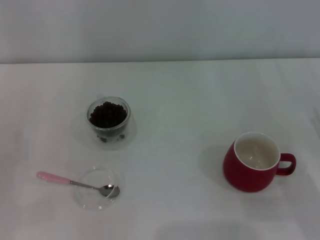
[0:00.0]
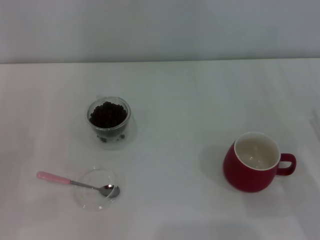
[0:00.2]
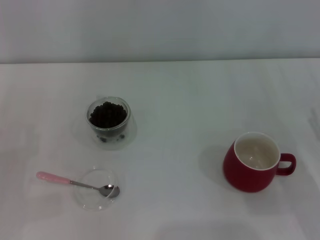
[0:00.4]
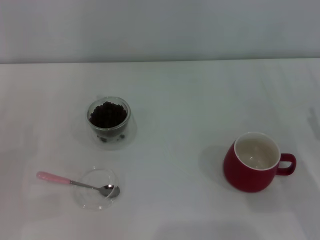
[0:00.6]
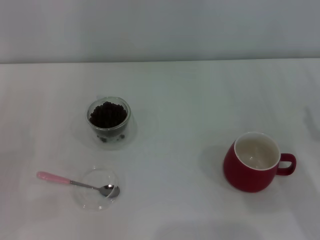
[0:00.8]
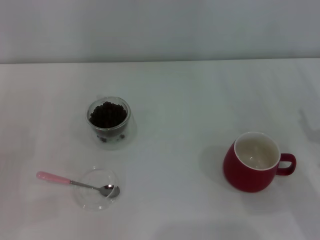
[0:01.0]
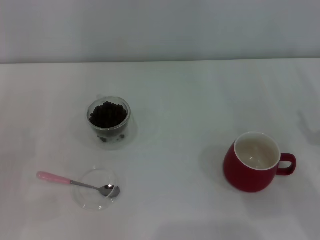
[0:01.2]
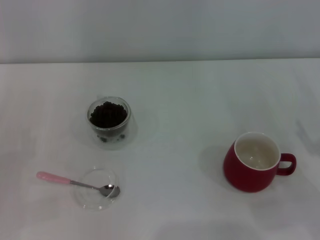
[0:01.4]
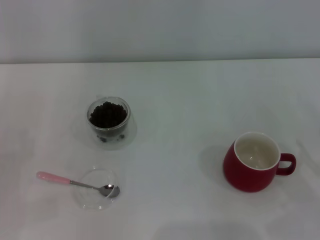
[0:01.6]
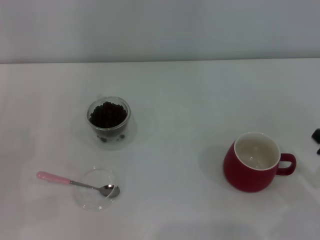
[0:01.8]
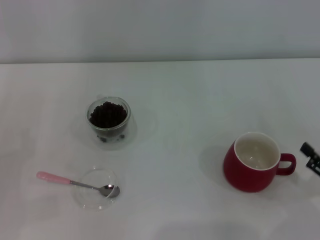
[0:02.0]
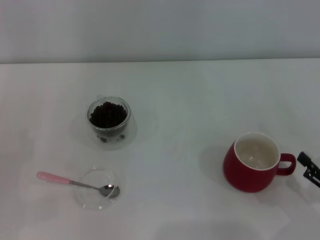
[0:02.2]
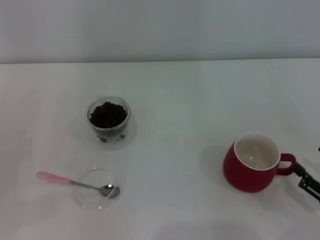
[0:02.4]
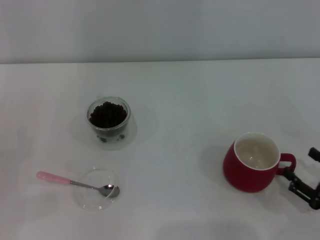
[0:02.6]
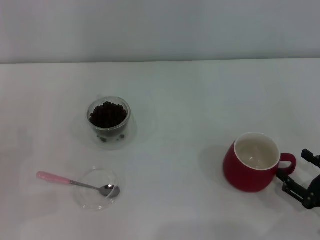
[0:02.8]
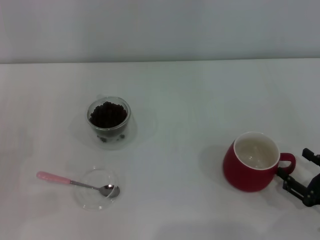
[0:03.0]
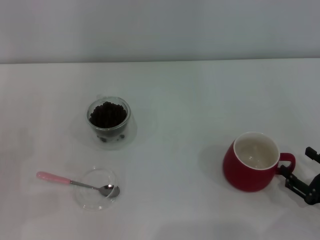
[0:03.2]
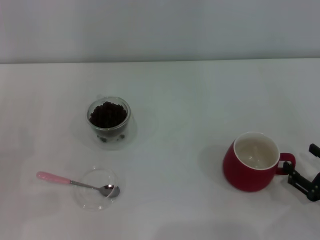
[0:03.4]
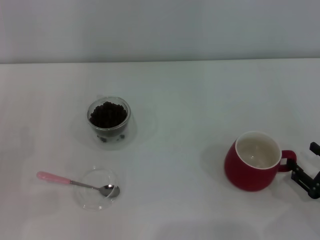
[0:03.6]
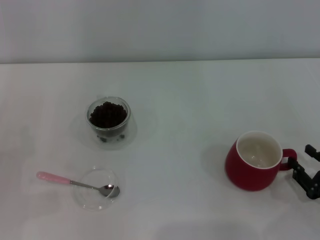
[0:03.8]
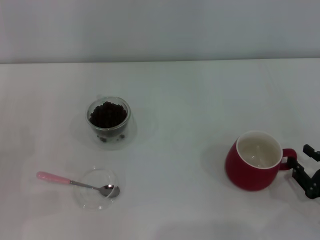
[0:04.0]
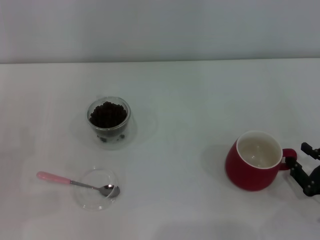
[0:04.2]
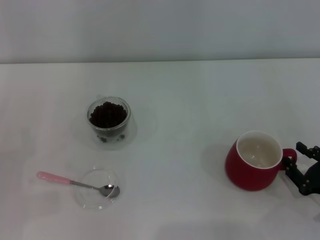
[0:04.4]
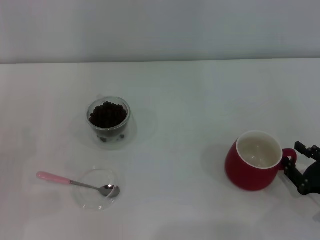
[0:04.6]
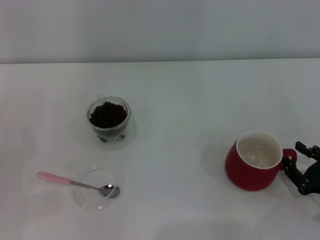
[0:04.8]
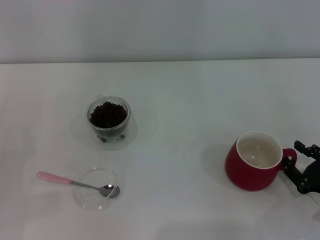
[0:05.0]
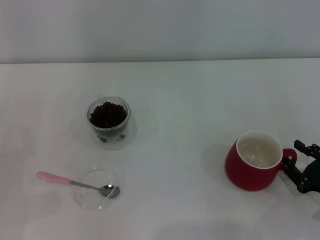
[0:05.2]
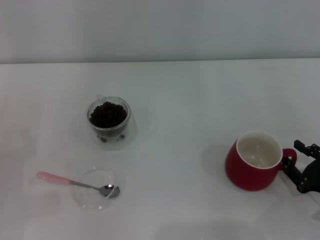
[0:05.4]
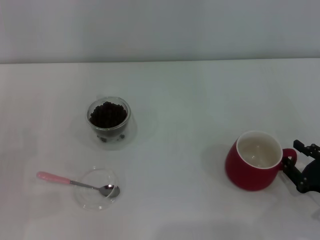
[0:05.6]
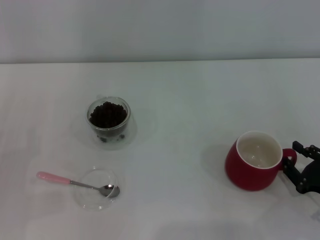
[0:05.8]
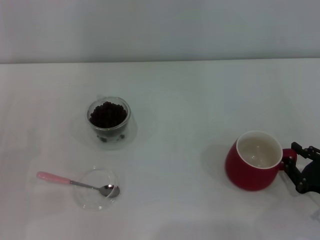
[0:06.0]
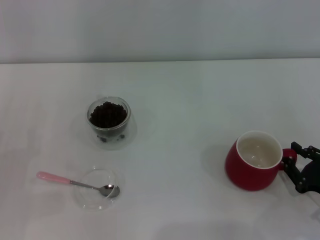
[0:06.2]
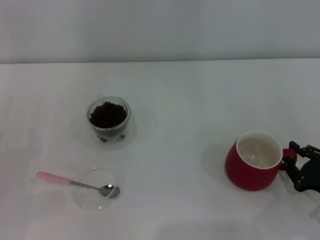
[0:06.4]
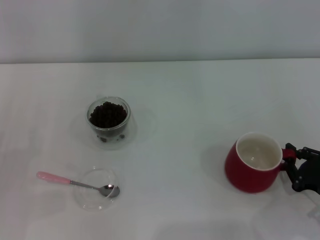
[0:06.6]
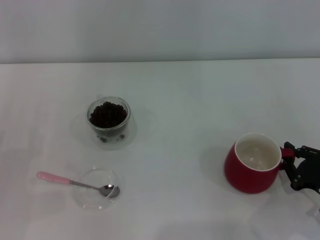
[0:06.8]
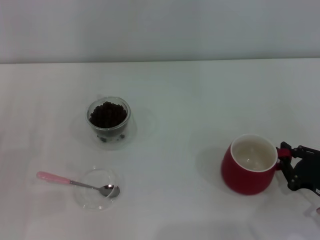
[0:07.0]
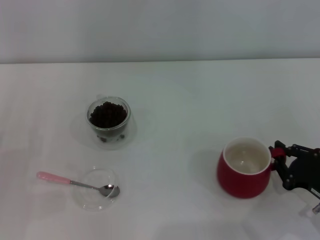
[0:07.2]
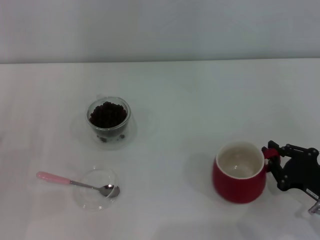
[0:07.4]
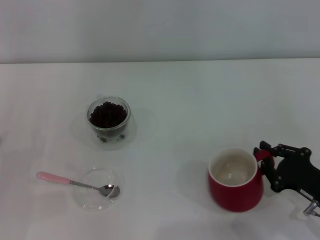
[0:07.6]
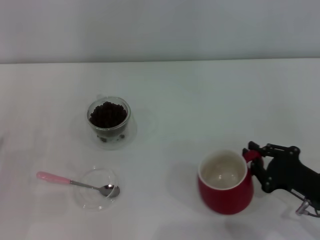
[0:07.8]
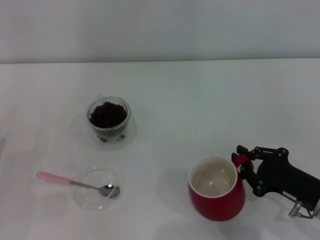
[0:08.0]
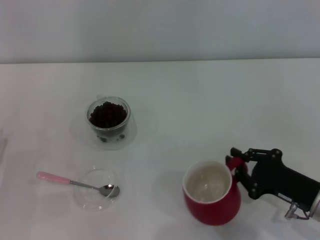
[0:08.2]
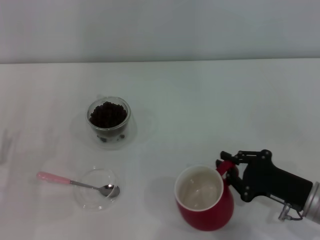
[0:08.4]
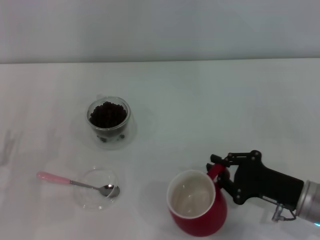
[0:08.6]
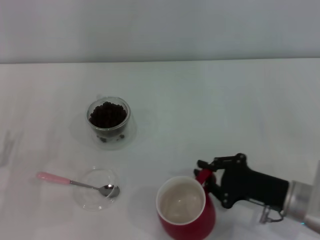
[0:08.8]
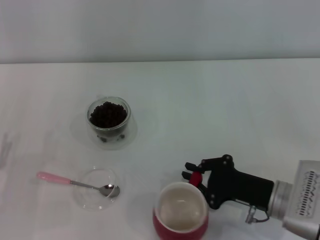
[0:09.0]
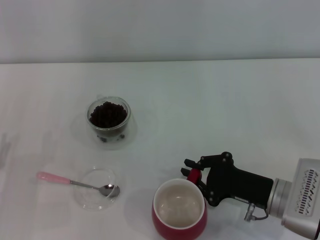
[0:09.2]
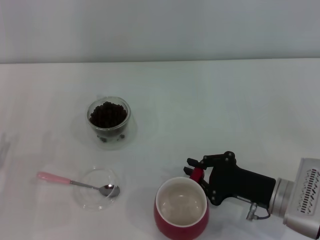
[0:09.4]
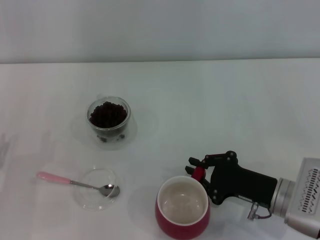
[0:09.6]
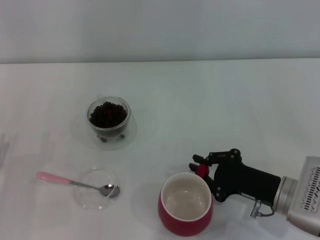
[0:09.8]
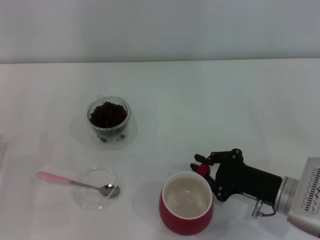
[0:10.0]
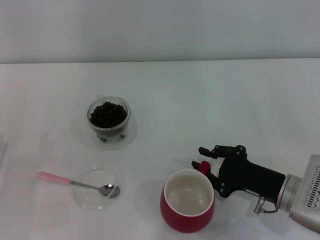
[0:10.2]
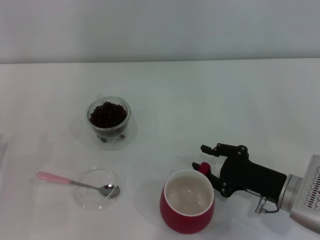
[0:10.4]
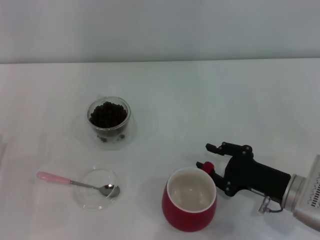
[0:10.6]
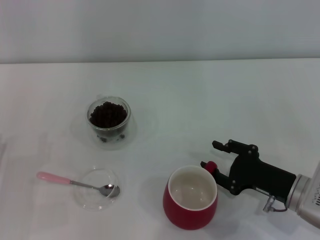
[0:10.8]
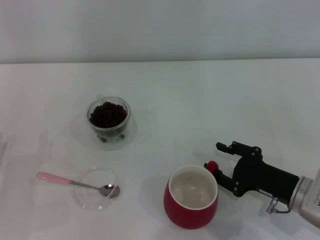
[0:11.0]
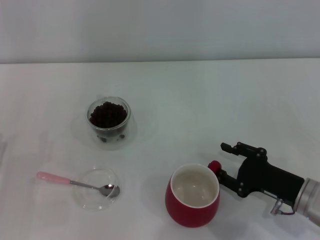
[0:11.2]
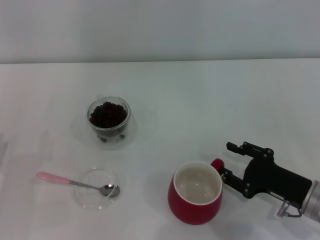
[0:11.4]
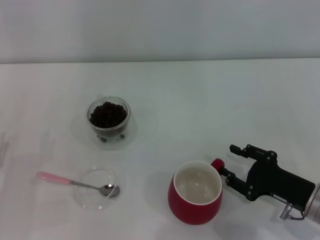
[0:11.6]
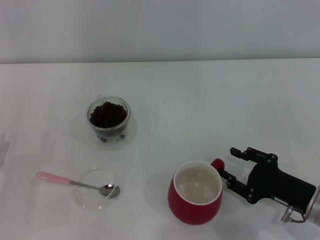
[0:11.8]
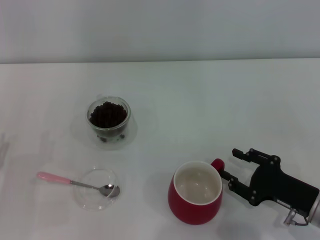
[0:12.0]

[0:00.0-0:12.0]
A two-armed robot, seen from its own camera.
Task of the whole recording: Use a pink spoon to take out the coffee beans from the glass and pour them into the red cup.
0:01.6 to 0:03.0: There are only small adjustments of the grippers.
0:03.0 to 0:04.4: The right gripper closes its fingers.
0:04.4 to 0:06.0: Both grippers stay about where they are.
0:06.0 to 0:07.6: The right gripper closes.
0:07.6 to 0:09.0: The right gripper shifts approximately 10 cm to the left.
0:09.0 to 0:10.4: The right gripper opens its fingers.
0:10.4 to 0:12.0: There are only small adjustments of the grippers.

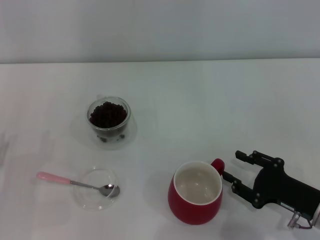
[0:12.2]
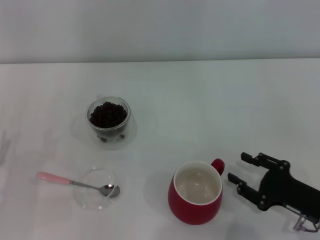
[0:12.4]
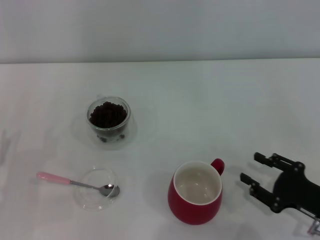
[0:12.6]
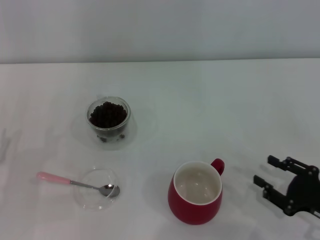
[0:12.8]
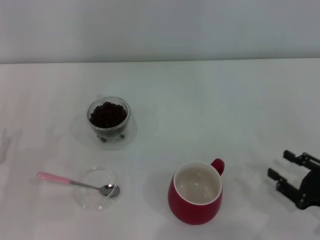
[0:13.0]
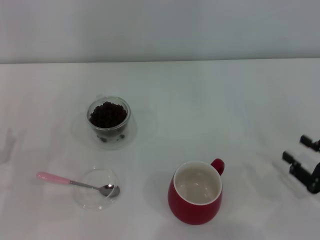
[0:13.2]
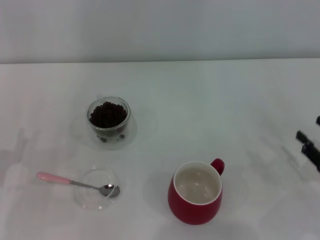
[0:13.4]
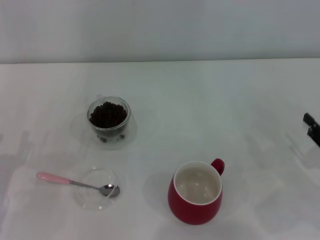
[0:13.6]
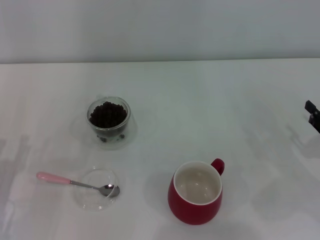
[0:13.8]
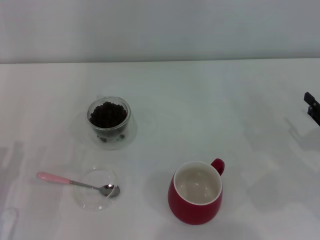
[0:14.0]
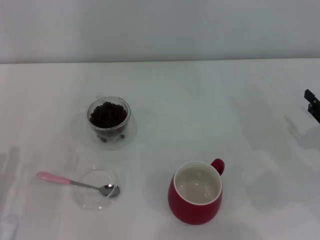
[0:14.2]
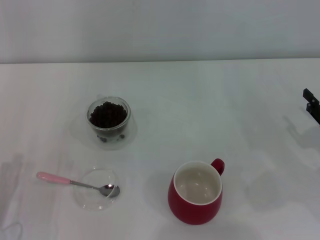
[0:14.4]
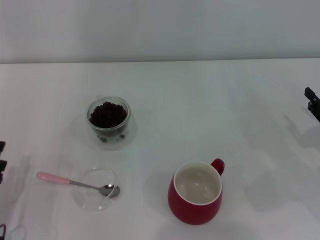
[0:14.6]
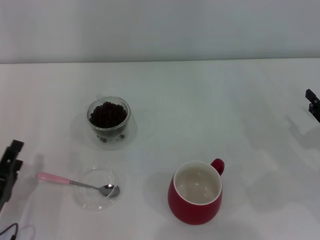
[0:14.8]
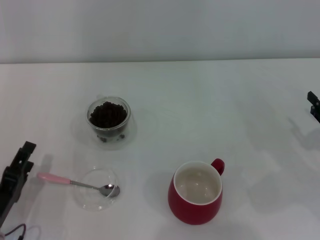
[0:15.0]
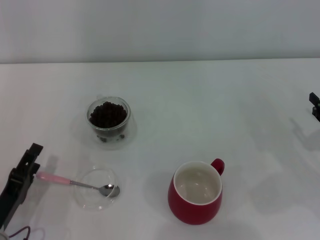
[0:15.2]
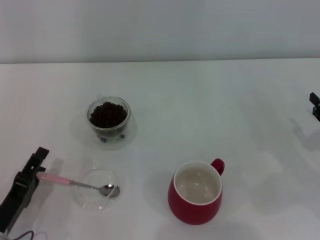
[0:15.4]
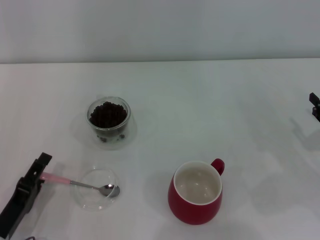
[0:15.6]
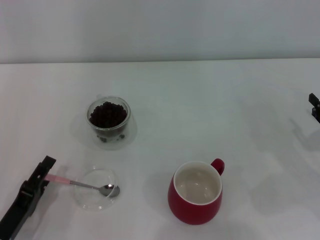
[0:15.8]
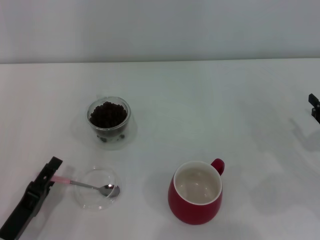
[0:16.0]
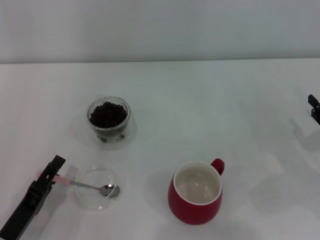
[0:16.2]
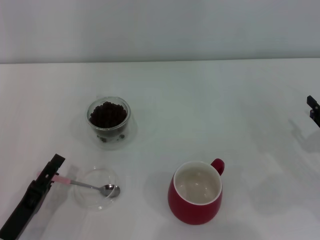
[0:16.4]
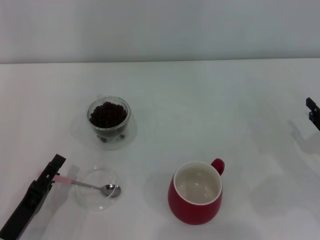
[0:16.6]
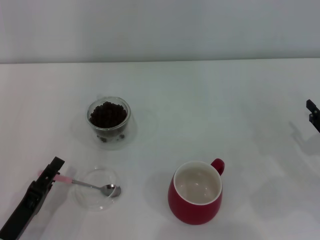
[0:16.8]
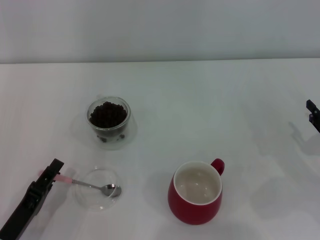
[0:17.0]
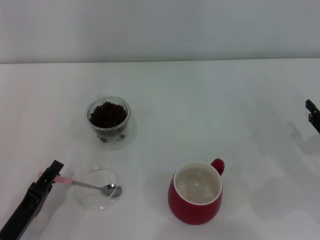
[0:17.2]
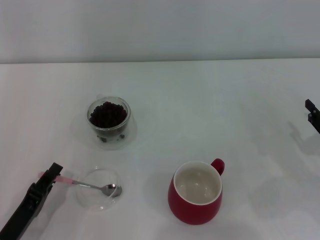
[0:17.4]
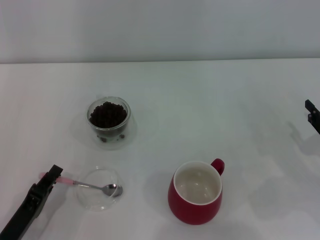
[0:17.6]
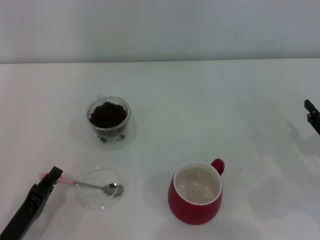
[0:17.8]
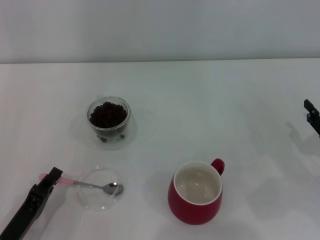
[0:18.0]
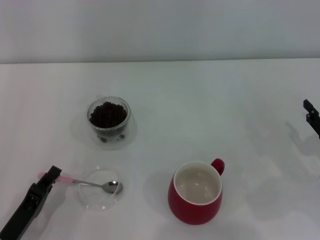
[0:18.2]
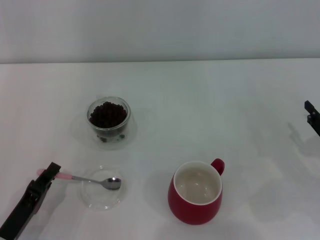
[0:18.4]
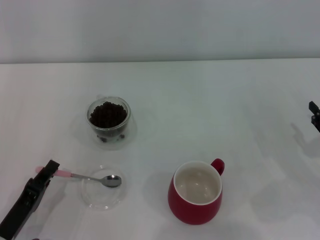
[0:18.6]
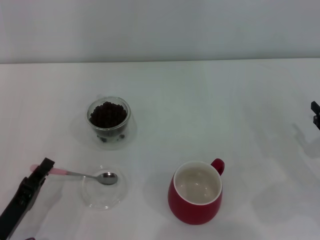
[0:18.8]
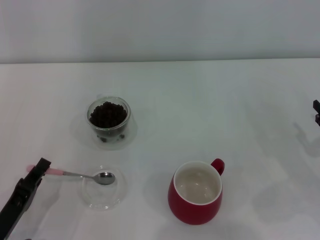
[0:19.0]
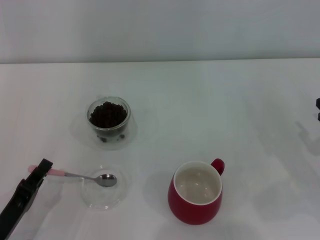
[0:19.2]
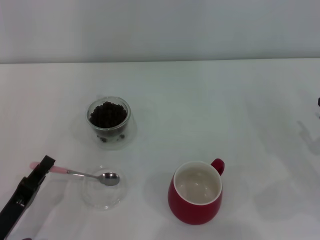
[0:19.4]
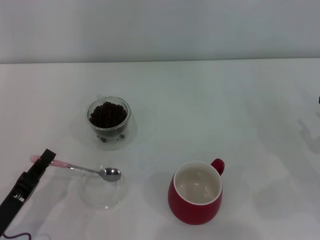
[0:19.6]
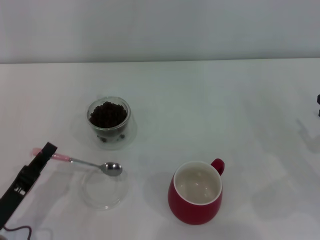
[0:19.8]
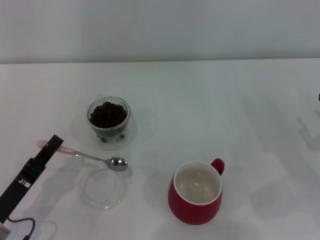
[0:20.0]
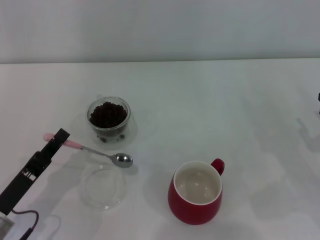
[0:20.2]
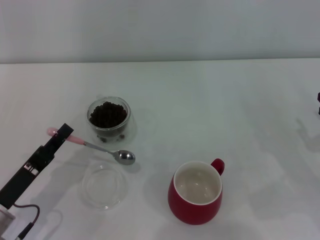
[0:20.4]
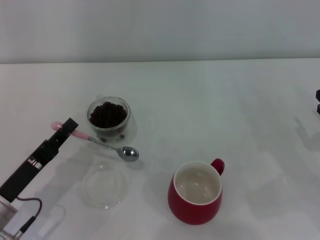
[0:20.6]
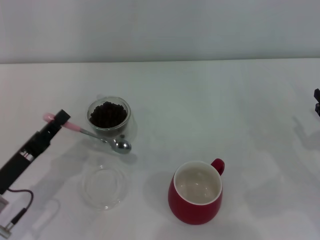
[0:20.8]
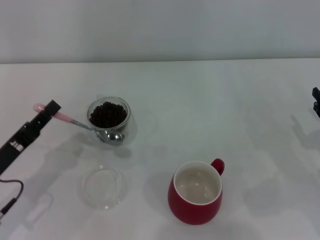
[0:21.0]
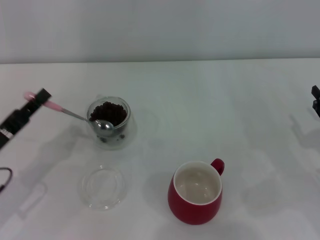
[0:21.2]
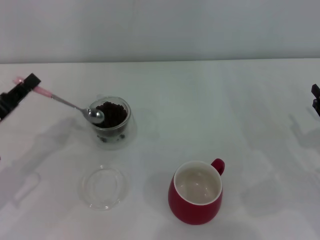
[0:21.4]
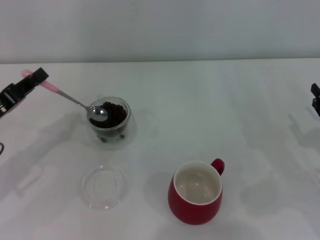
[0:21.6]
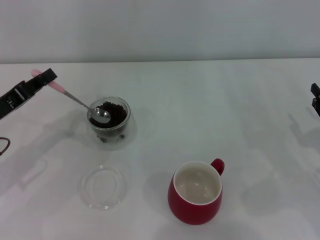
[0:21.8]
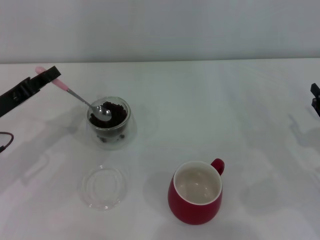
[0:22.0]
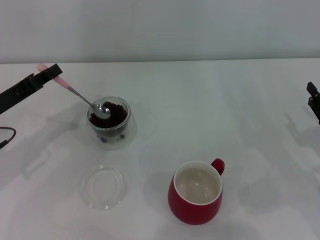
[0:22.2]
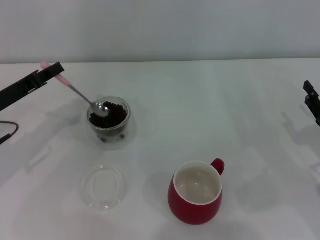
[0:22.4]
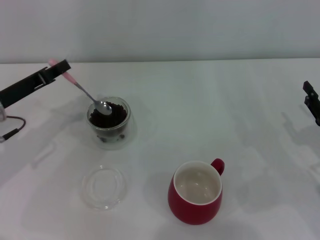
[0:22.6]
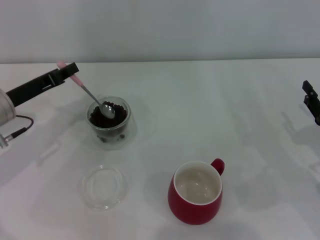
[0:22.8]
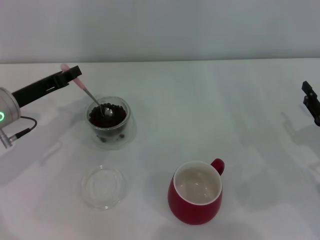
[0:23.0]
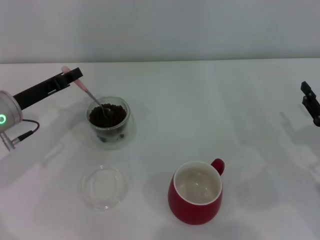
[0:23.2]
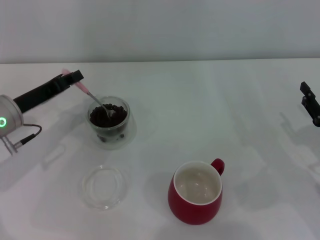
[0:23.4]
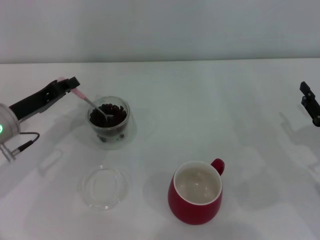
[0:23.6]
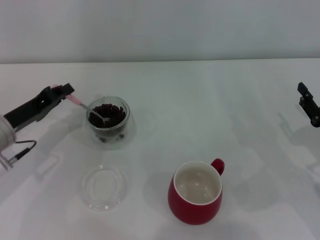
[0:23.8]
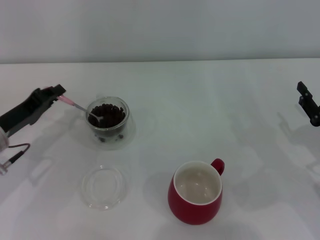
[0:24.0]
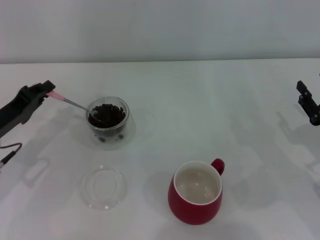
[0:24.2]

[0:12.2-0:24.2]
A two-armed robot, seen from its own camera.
Task of the whole recording: Use a pink spoon to take out the coffee beans from the glass and pour them into the red cup.
Step, 0:13.0 to 0:19.8: Pick up the spoon with the right gripper.
0:12.2 to 0:13.8: The right gripper shifts roughly 10 cm to the right.
0:13.8 to 0:15.2: The left gripper ends up roughly 5 cm from where it was.
0:15.2 to 0:16.6: The grippers move only a little.
0:16.6 to 0:18.2: The left gripper closes up.
0:18.2 to 0:19.8: The grippers move only a little.
0:19.8 to 0:21.2: The left gripper goes some 10 cm forward and upward.
0:21.2 to 0:22.6: The left gripper heads forward, covering roughly 10 cm.
0:22.6 to 0:24.2: The left gripper shifts by some 5 cm.
